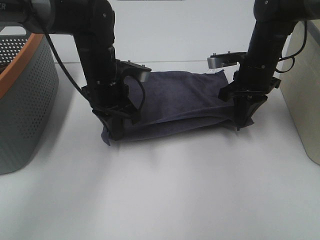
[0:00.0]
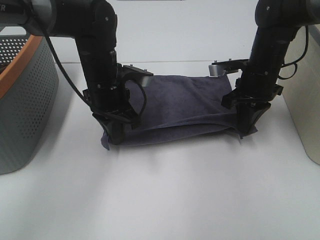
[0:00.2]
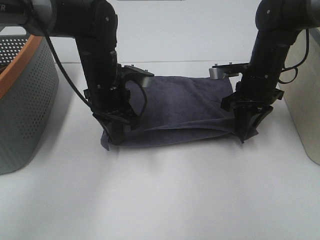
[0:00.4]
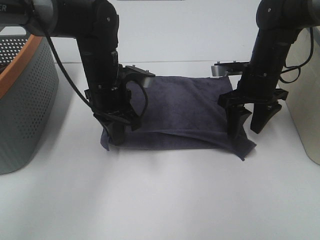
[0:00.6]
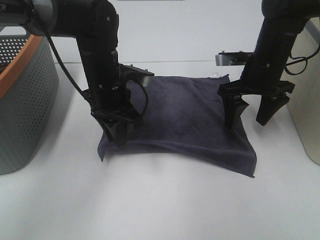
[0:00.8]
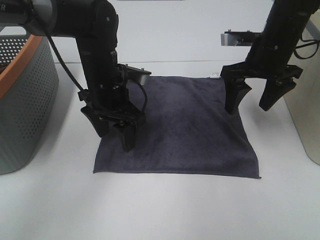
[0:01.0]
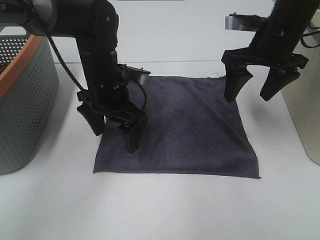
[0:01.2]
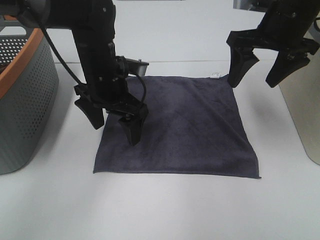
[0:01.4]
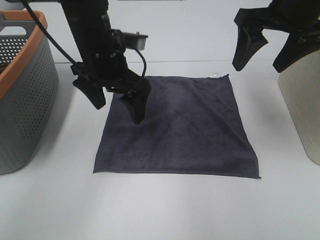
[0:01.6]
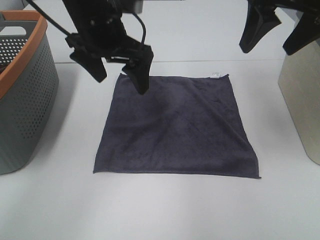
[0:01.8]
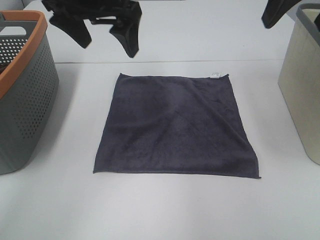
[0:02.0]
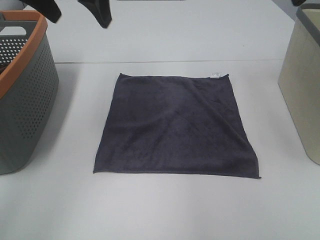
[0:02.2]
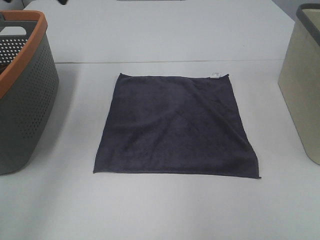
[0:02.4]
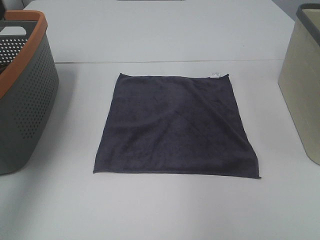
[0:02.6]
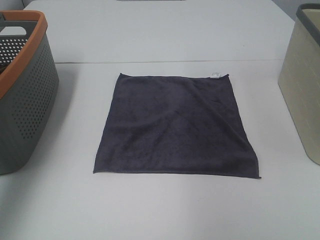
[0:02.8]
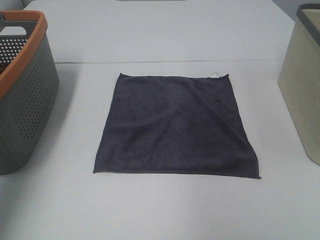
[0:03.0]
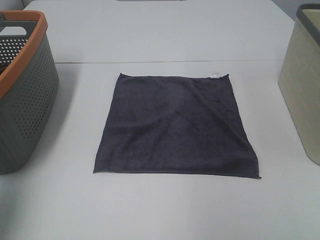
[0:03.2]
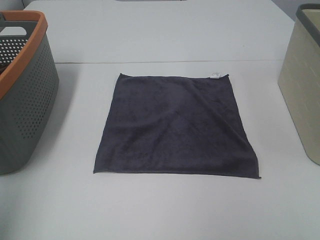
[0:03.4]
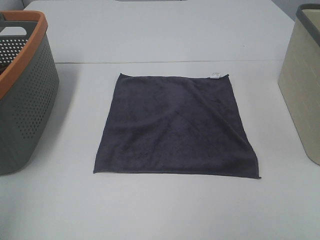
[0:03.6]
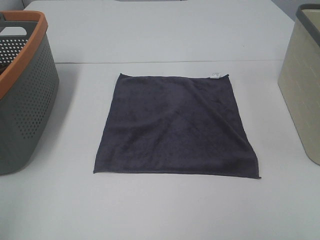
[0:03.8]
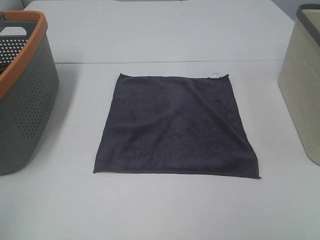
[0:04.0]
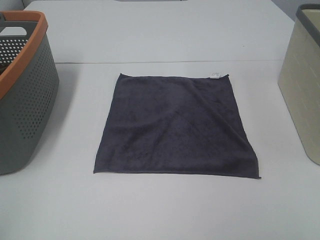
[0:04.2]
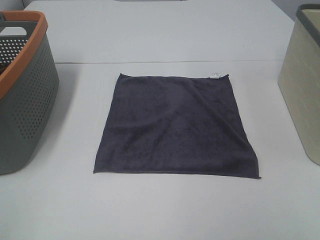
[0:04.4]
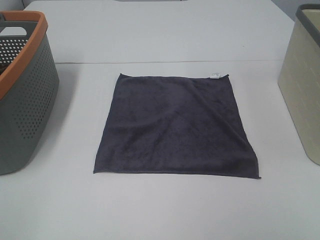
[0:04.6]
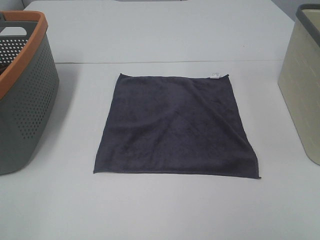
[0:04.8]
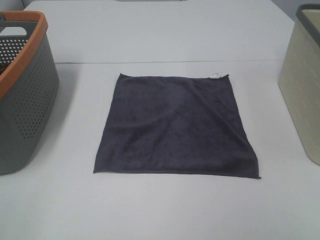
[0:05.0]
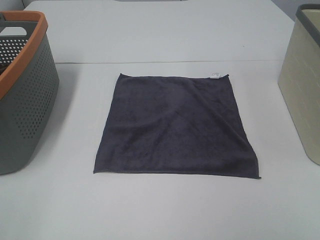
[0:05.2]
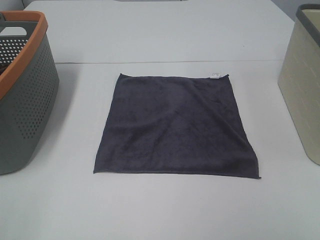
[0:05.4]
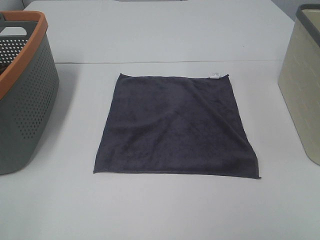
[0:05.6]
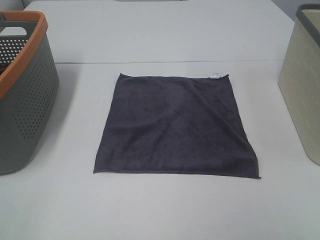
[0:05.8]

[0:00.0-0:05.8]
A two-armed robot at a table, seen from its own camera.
Task of the whole recording: Remove the towel and place it.
0:00.0 to 0:01.4: The right gripper is displaced upward by about 10 cm, and opens; the left gripper opens up.
0:01.4 to 0:02.8: The right gripper heads upward, backward and to the right, covering approximately 20 cm. The left gripper moves to the left and upward, about 30 cm.
0:02.8 to 0:04.4: The left gripper heads backward, covering roughly 25 cm.

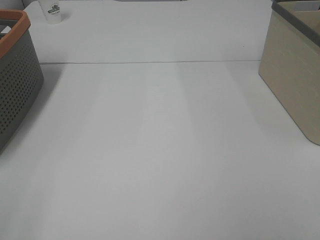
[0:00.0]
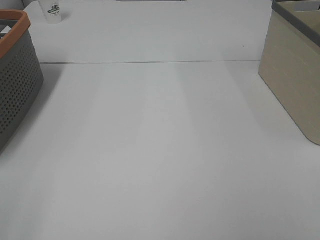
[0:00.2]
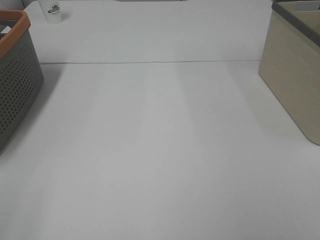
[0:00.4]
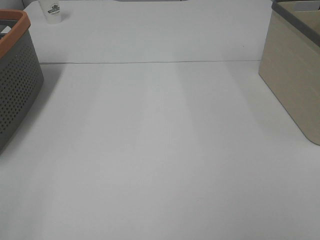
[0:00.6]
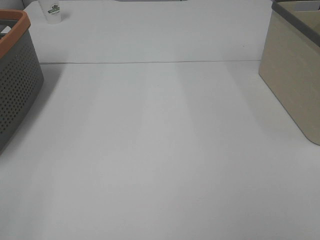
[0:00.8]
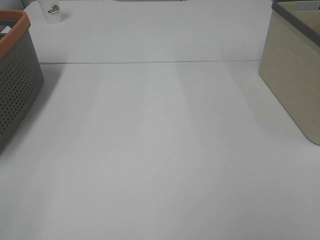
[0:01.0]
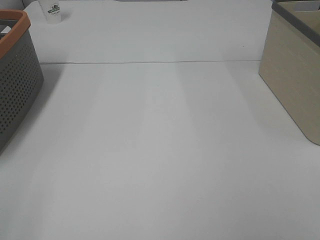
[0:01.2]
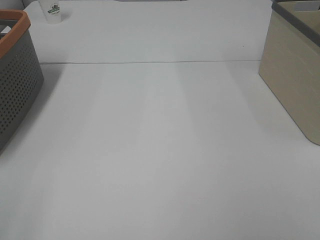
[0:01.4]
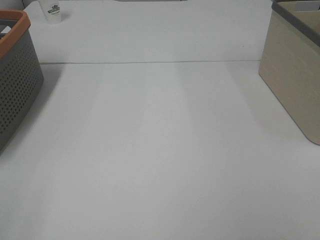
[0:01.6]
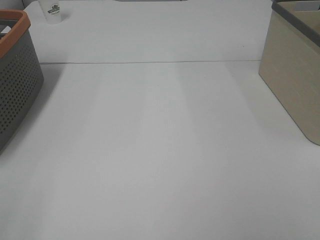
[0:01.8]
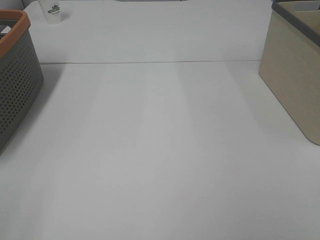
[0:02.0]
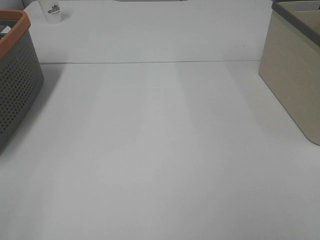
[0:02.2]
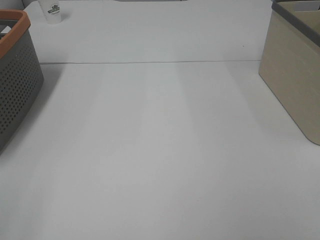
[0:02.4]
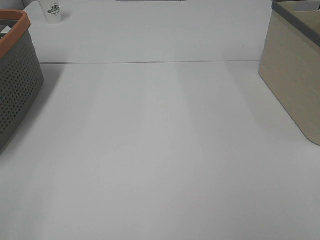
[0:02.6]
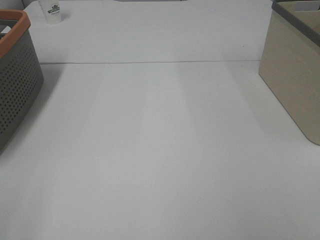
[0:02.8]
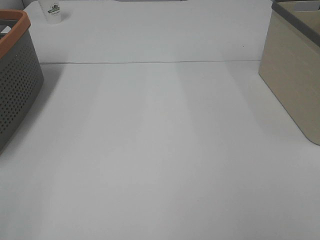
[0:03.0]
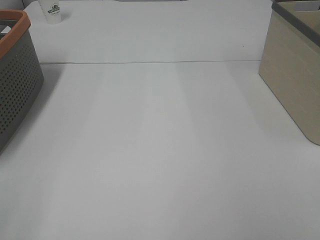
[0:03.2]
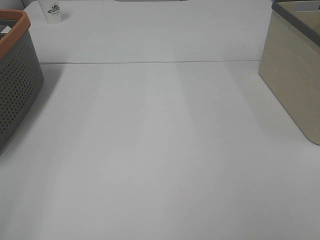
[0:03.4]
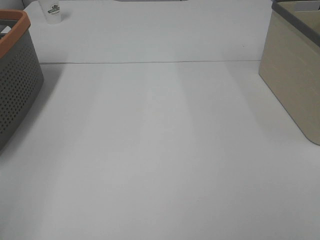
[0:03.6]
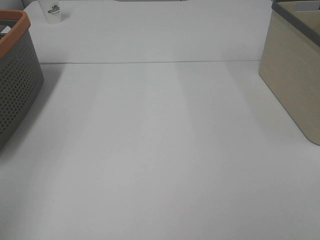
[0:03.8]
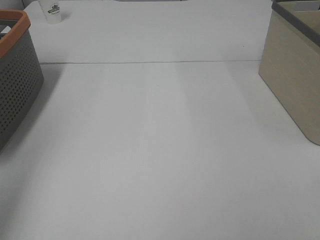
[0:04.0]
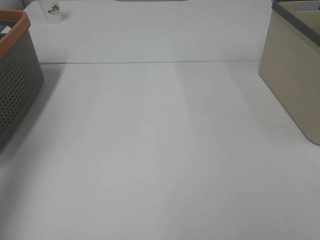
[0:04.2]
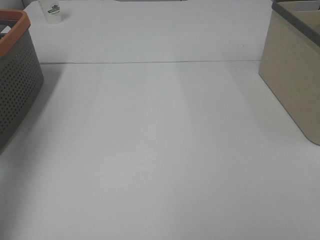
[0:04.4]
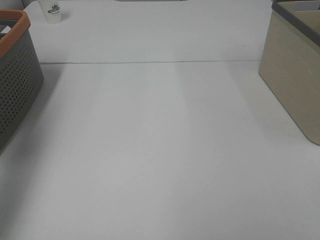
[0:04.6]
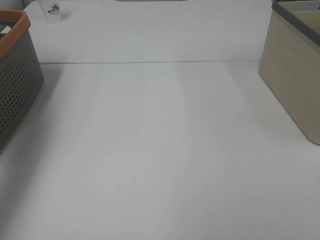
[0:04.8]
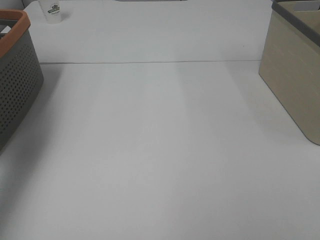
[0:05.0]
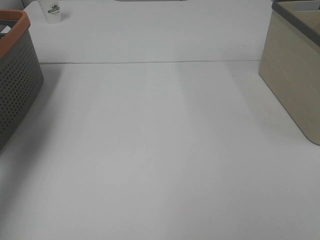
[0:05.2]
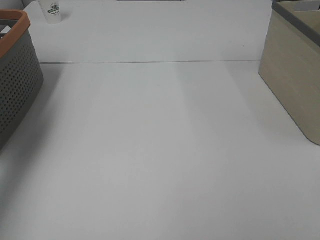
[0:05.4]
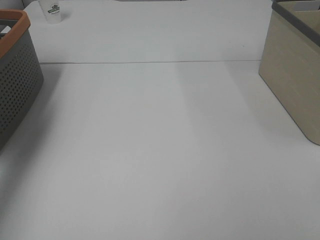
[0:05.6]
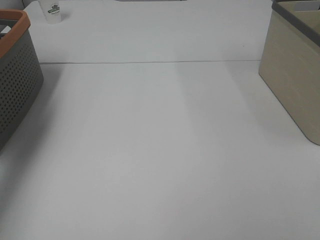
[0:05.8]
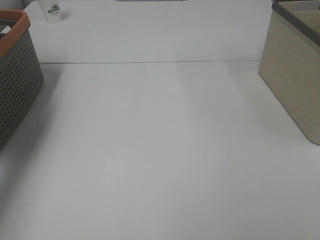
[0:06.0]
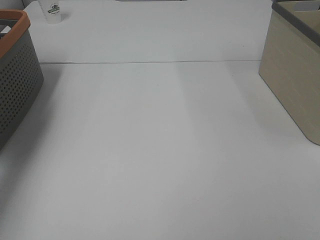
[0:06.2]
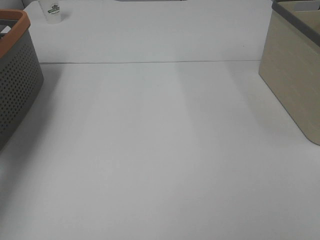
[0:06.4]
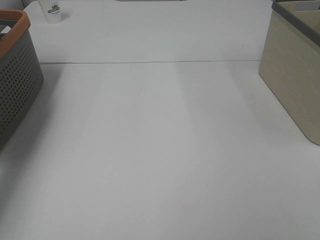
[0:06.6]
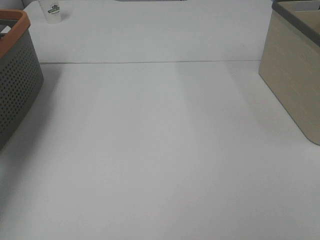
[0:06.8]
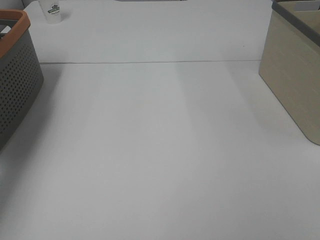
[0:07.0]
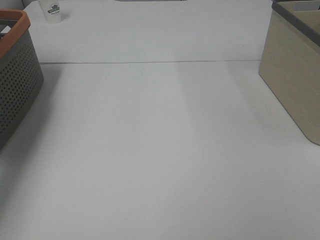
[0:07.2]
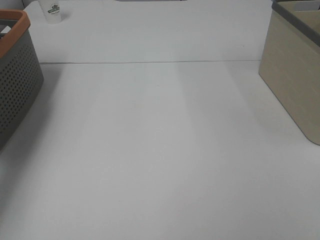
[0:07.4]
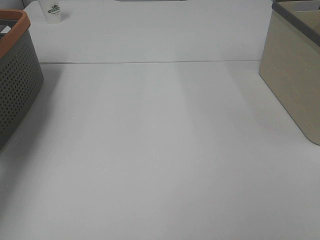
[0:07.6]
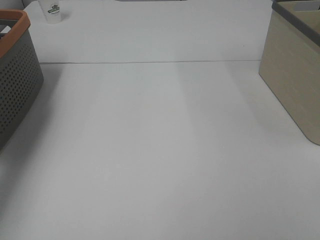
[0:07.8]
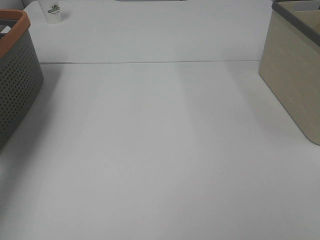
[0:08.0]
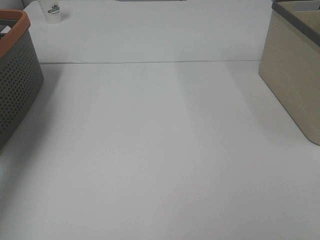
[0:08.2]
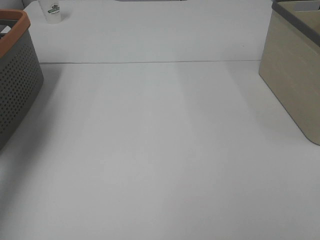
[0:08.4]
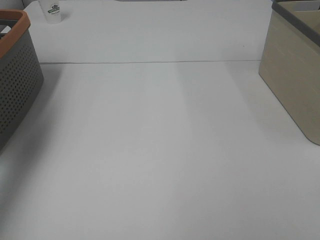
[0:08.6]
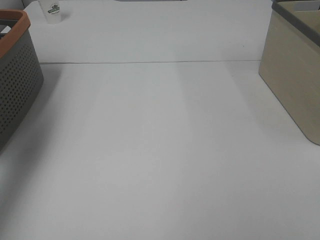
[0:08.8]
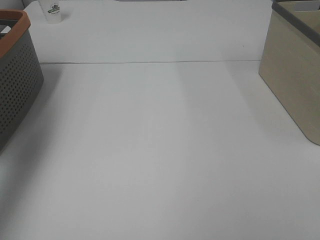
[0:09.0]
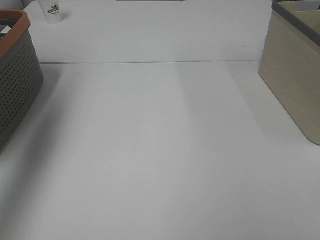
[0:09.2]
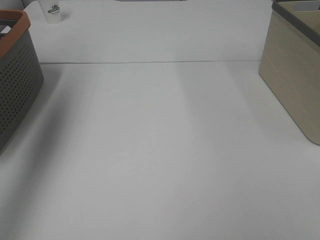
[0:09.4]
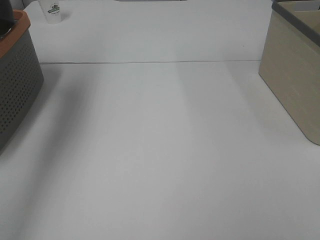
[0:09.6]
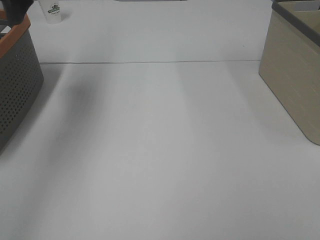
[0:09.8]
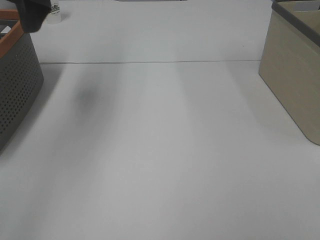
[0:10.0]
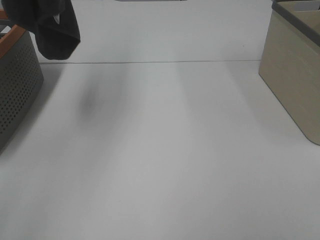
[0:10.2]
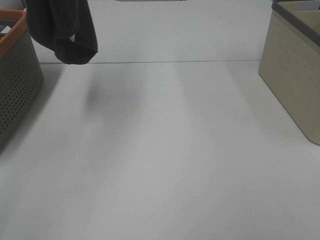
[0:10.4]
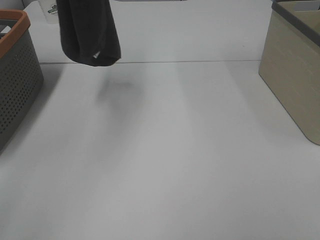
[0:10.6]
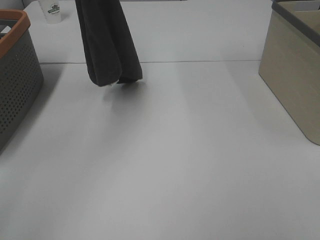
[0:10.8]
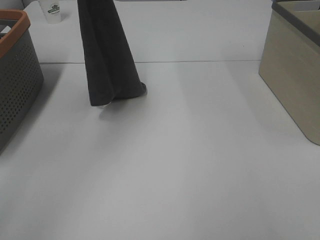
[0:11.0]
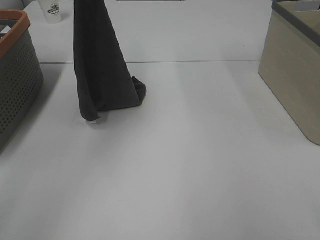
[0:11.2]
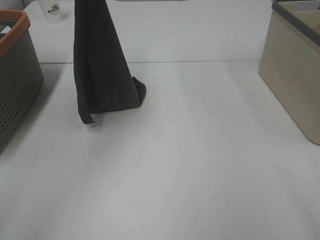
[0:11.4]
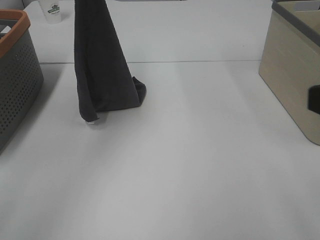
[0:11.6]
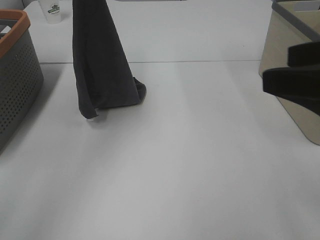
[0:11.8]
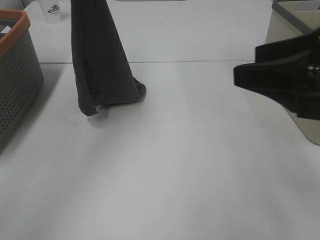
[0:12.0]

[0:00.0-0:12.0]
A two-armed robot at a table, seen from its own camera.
Task of the whole recording: Remove the towel and place it.
0:00.0 to 0:01.6: Both grippers stay about where they are.
0:03.0 to 0:04.4: The left gripper shifts about 25 cm forward and upward.
0:04.4 to 0:06.0: The left gripper shifts roughly 25 cm forward and downward.
0:07.6 to 0:09.0: The left gripper heads upward, covering roughly 25 cm.
0:09.0 to 0:10.4: The left gripper heads to the right, covering roughly 20 cm.
0:10.4 to 0:12.0: The left gripper shifts about 15 cm downward, while the right gripper moves forward and to the left, about 20 cm.

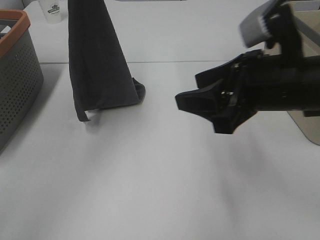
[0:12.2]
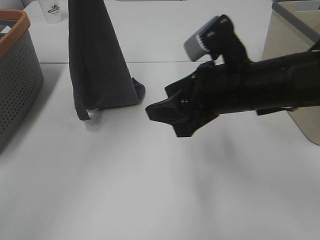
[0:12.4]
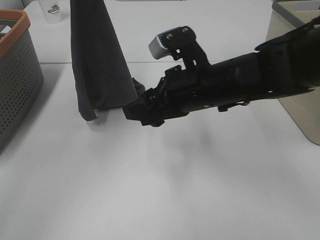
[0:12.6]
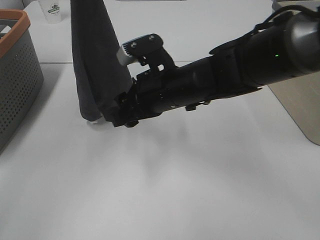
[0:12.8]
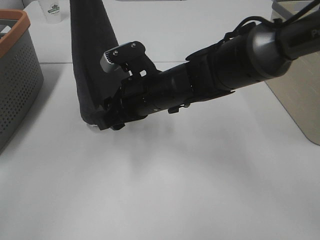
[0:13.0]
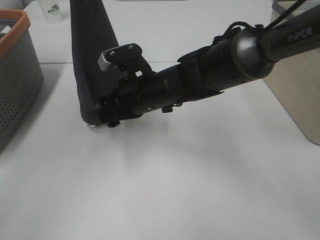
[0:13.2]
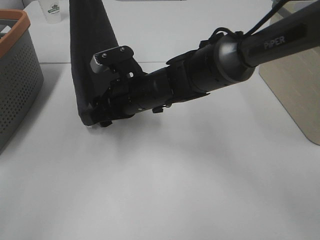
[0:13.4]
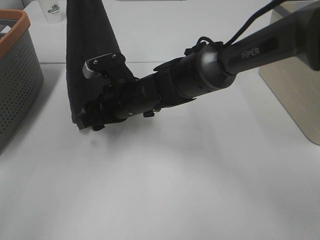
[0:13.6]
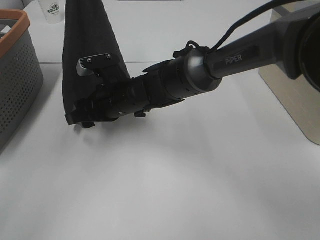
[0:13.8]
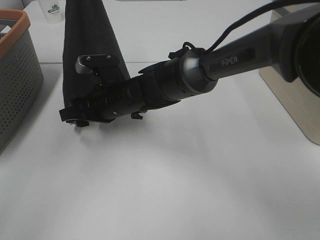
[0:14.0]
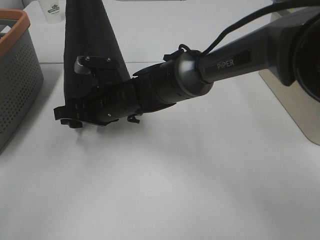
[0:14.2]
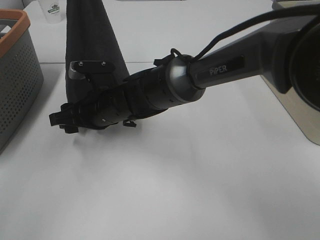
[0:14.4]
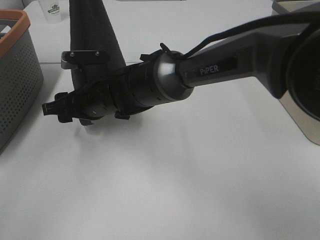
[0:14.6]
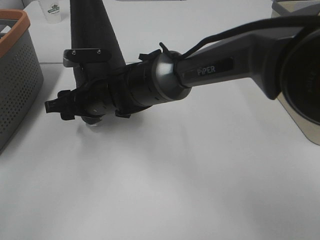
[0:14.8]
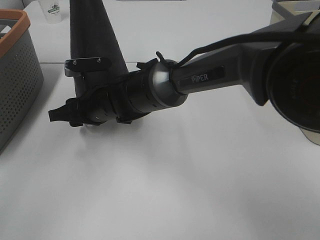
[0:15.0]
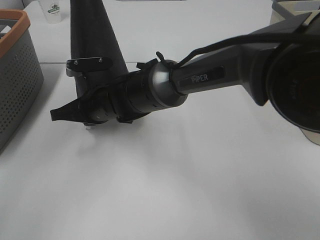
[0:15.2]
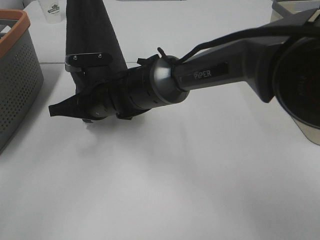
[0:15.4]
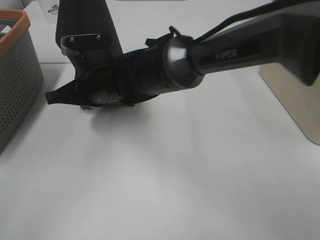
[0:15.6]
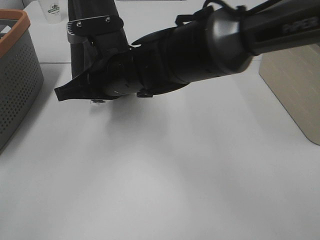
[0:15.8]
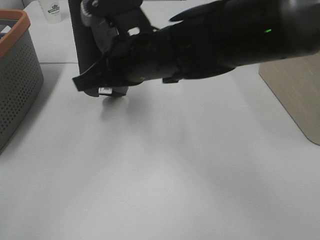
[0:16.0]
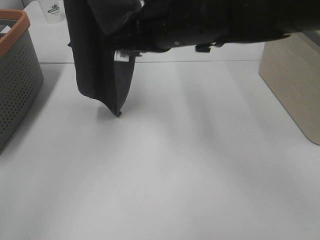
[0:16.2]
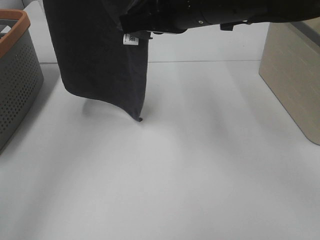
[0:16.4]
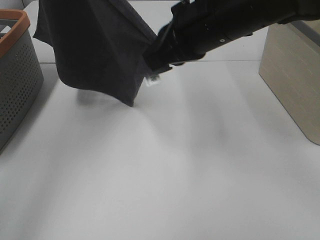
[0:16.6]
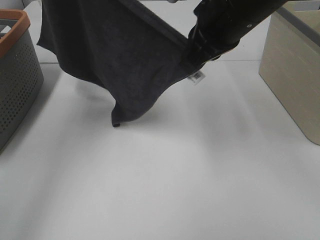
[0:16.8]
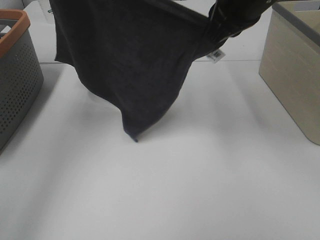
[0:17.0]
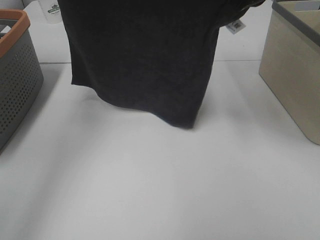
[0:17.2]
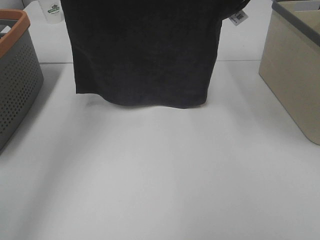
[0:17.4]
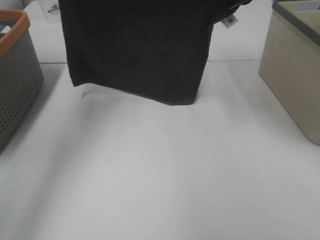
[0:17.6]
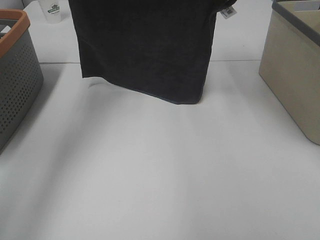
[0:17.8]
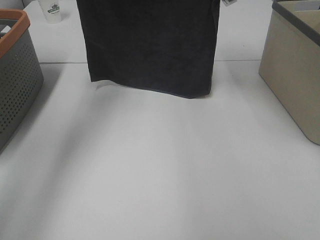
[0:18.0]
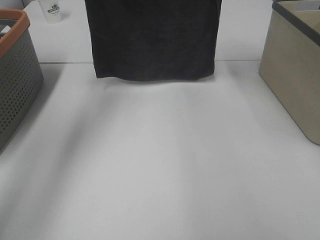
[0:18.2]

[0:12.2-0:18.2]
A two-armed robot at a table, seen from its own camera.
Task of the whole recording: Remove the towel and place it.
Step, 0:14.0 to 0:16.2: Left hand: spread the grey towel flat on the table.
Step, 0:14.0 to 0:16.4: Right hand: spread the grey towel flat on the table.
0:12.2 to 0:13.8: The right gripper goes roughly 25 cm to the left, forward and downward.
0:13.8 to 0:15.2: The right gripper closes.
0:15.2 to 0:16.6: The right gripper goes approximately 25 cm upward and to the right. The left gripper shifts some 5 cm upward.
0:16.6 to 0:18.2: The left gripper moves downward and forward, approximately 15 cm, while the right gripper is displaced forward and to the right by about 20 cm.
